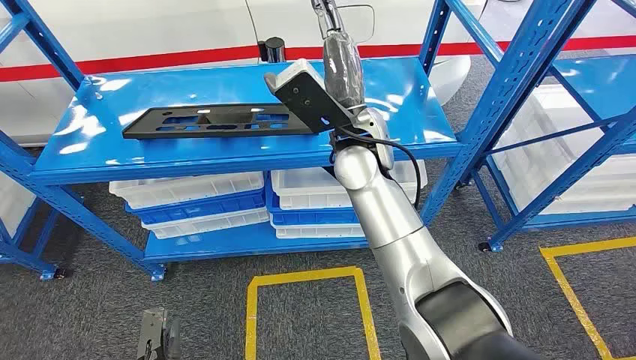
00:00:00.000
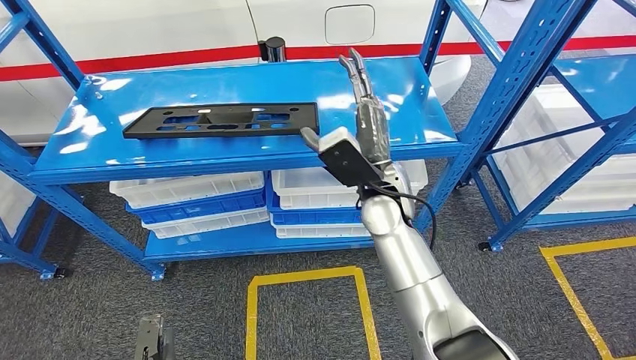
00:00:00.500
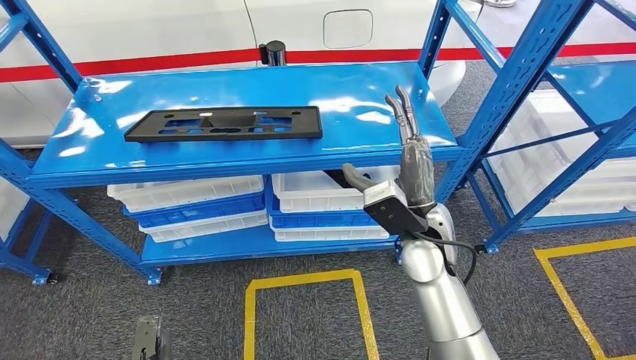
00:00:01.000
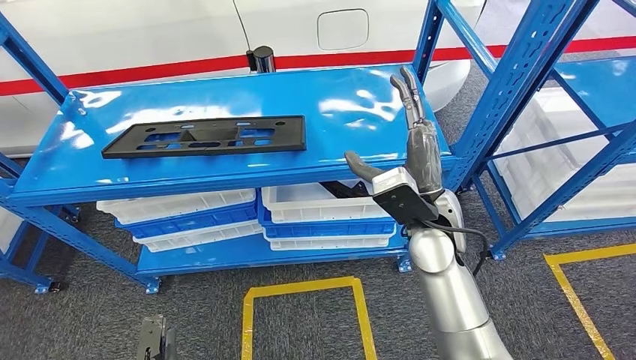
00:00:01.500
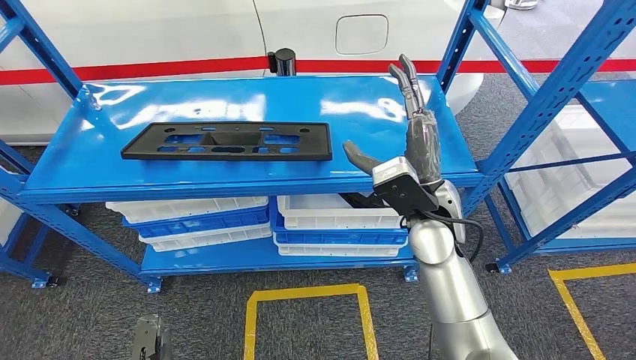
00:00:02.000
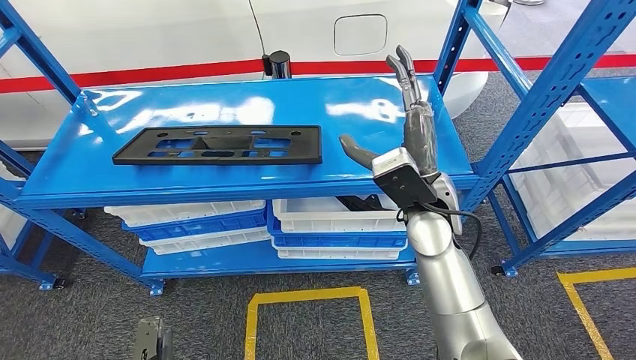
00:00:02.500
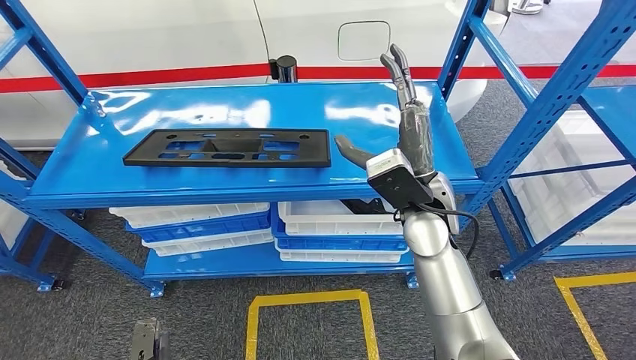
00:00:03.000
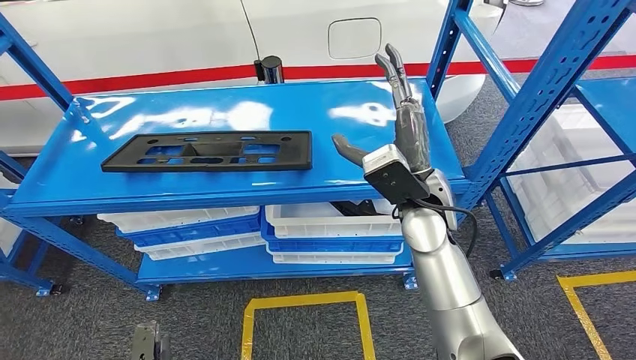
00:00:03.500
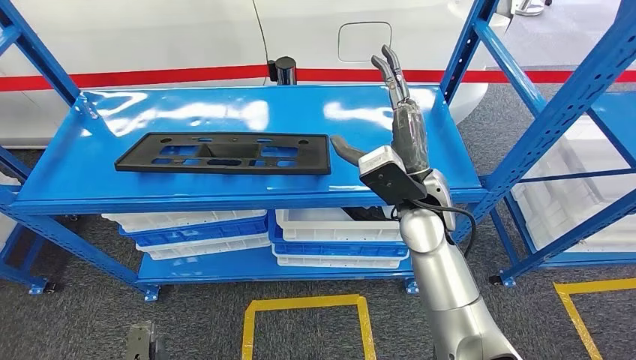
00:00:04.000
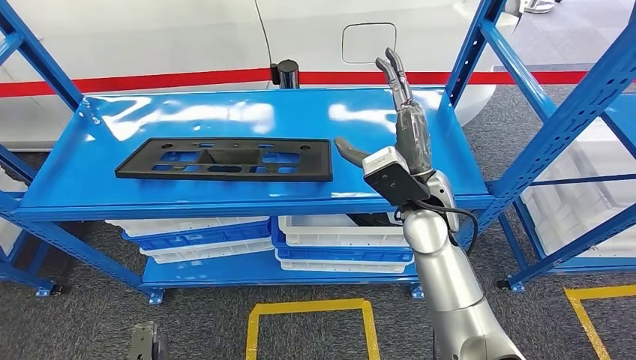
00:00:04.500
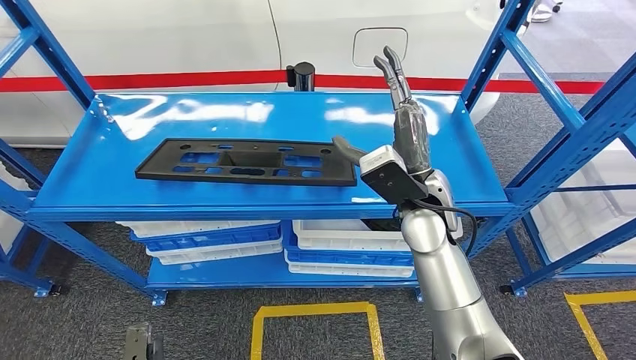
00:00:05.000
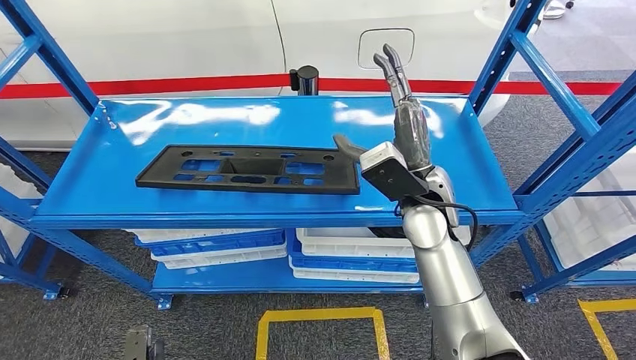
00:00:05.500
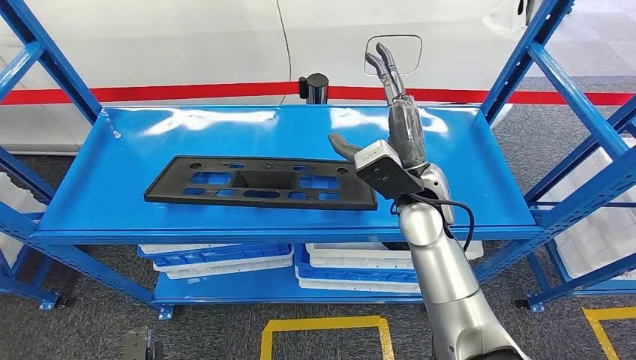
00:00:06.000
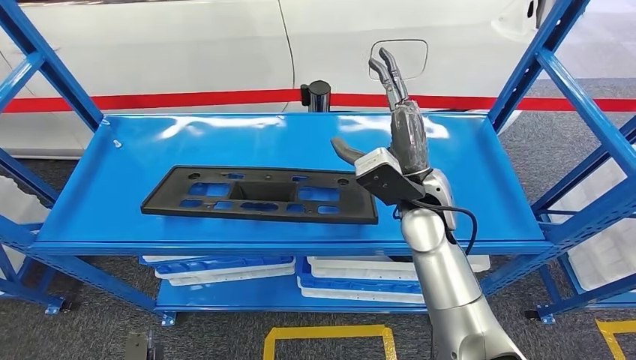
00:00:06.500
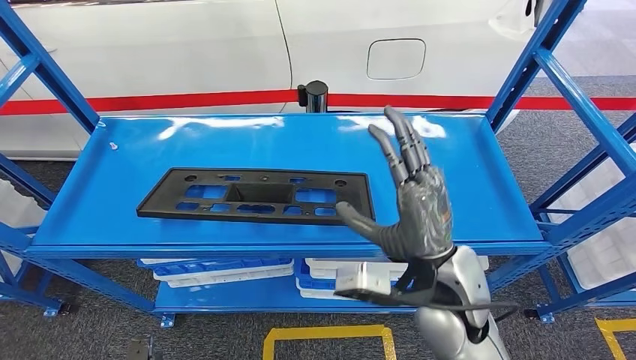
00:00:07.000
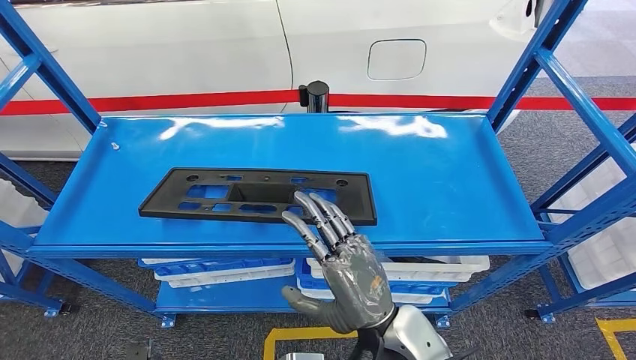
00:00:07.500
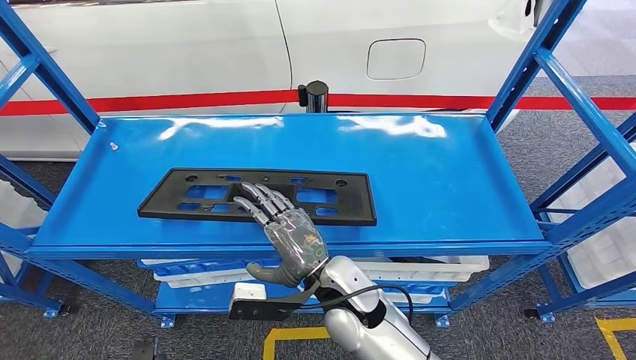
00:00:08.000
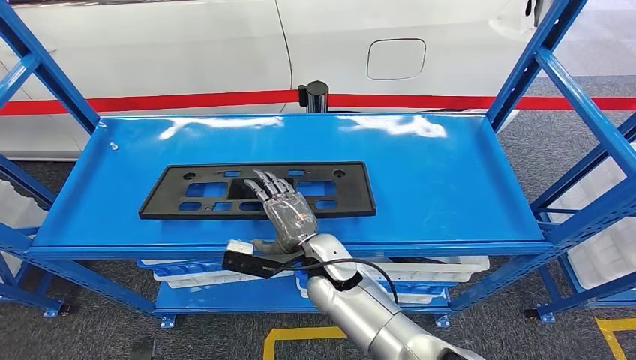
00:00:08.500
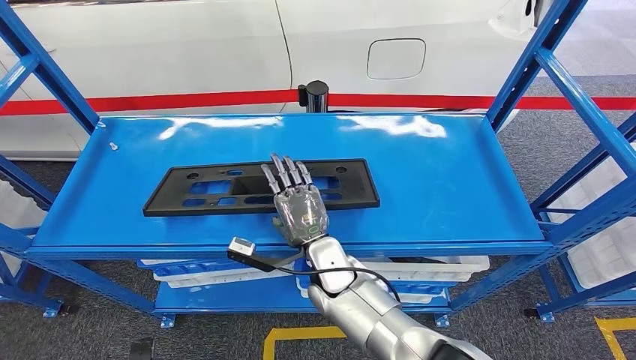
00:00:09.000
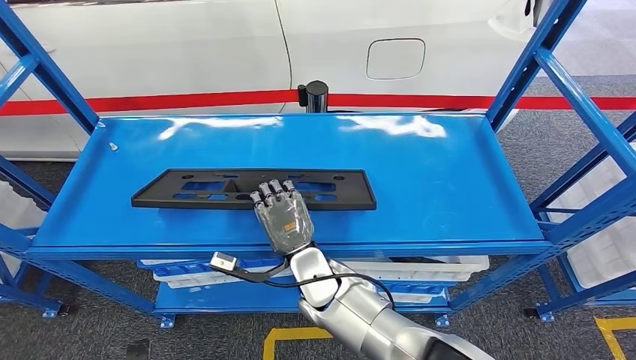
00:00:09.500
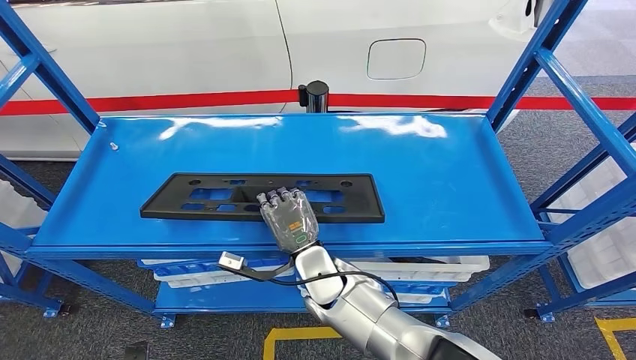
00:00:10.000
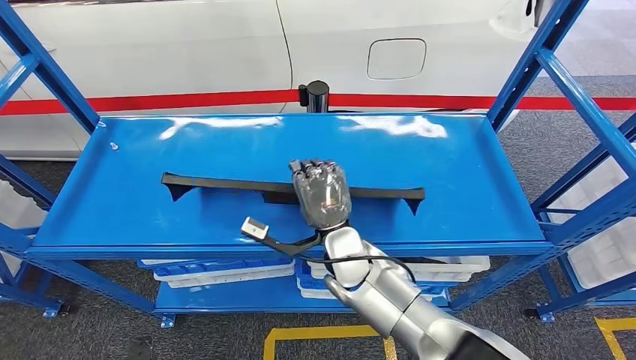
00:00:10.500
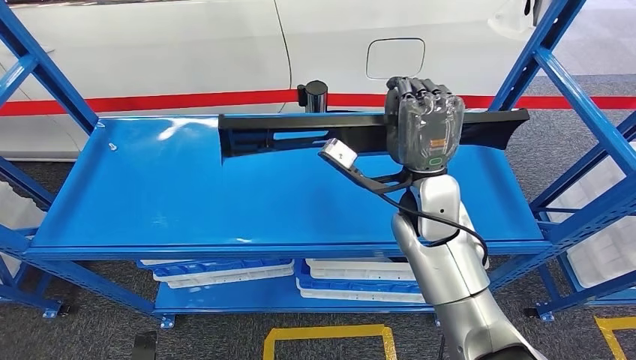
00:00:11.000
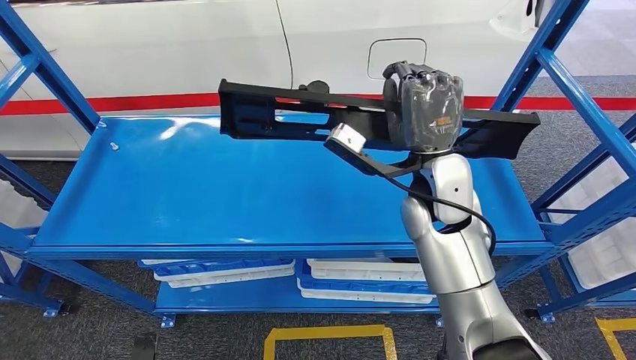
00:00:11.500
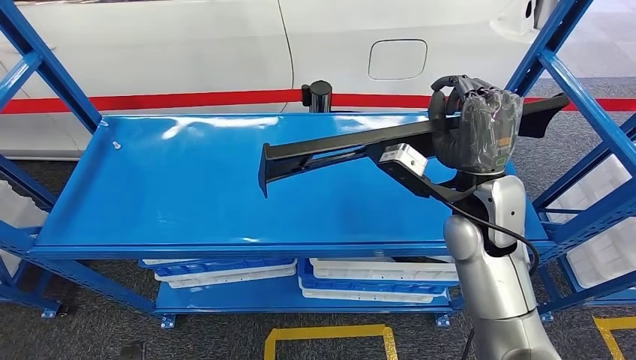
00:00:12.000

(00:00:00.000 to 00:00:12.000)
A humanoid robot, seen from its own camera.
00:00:08.000 - 00:00:10.000: The right hand moves roughly 5 cm.

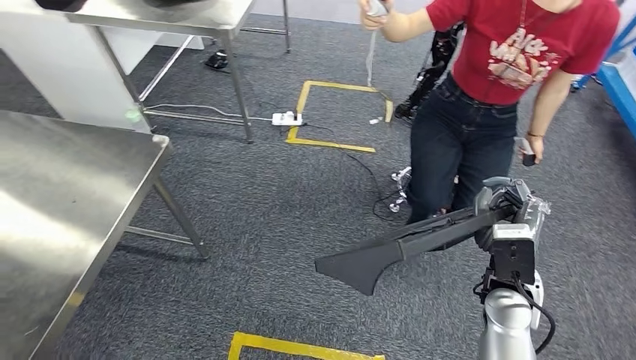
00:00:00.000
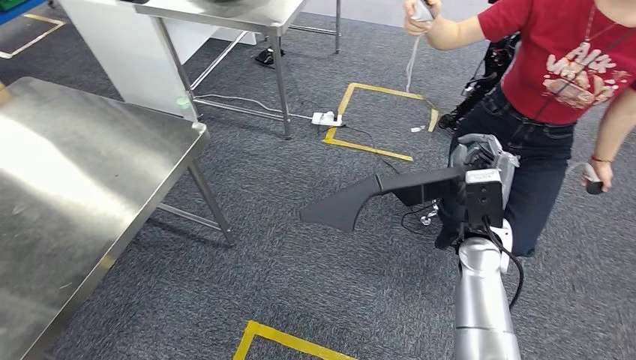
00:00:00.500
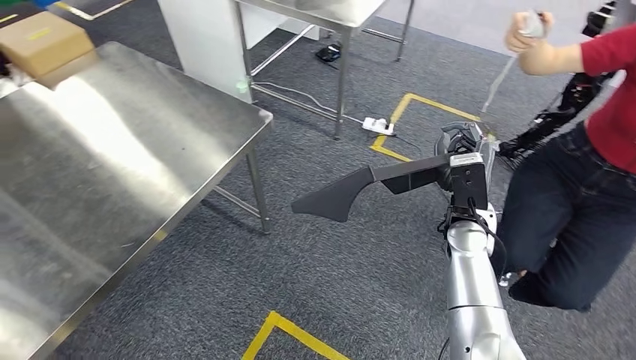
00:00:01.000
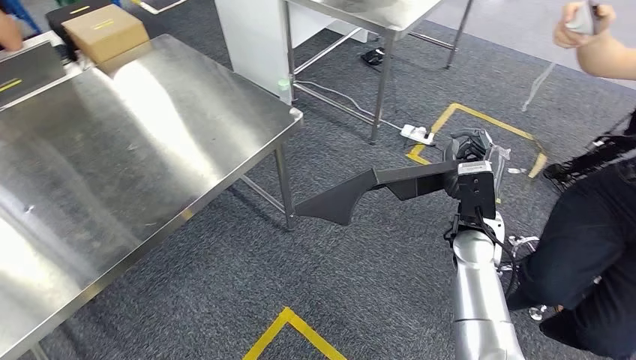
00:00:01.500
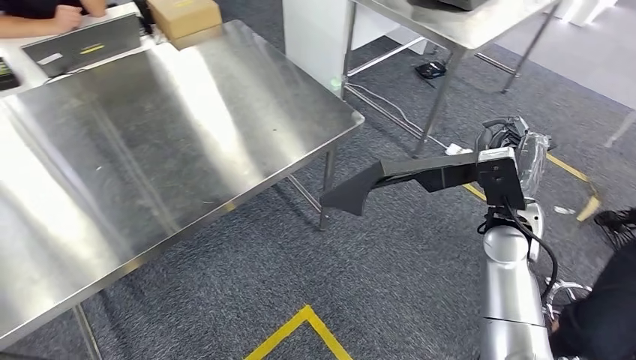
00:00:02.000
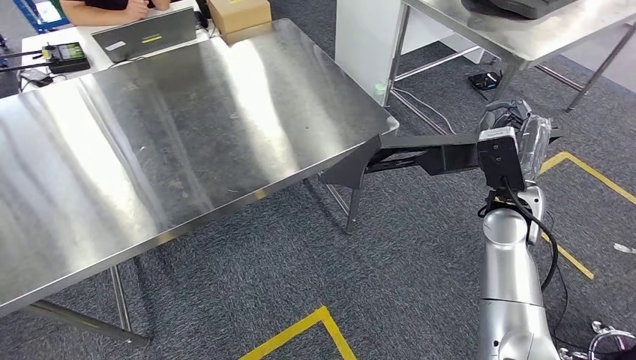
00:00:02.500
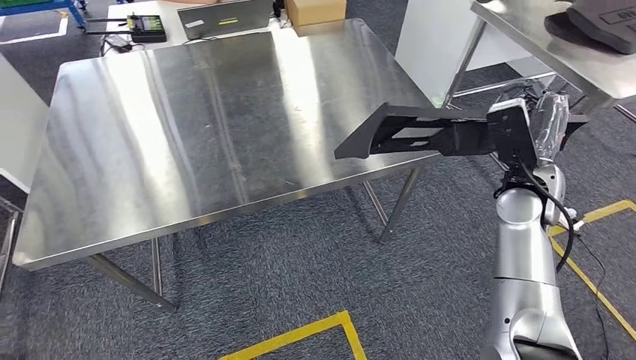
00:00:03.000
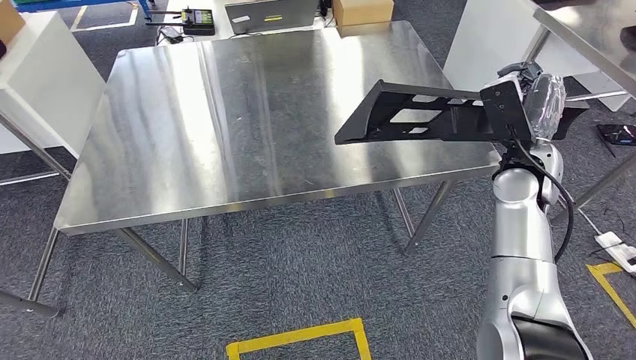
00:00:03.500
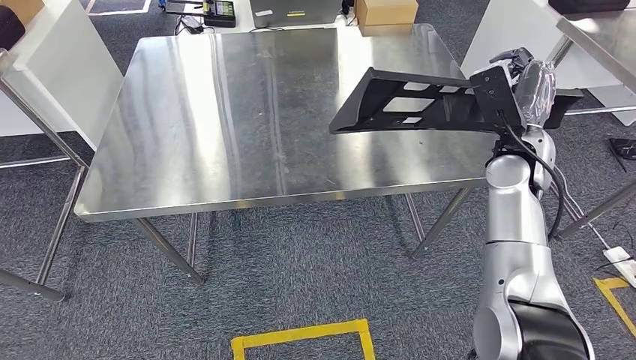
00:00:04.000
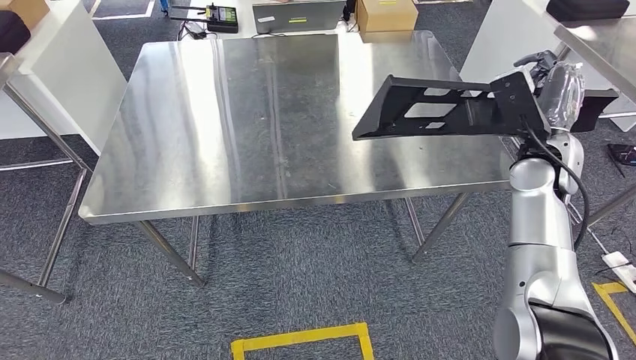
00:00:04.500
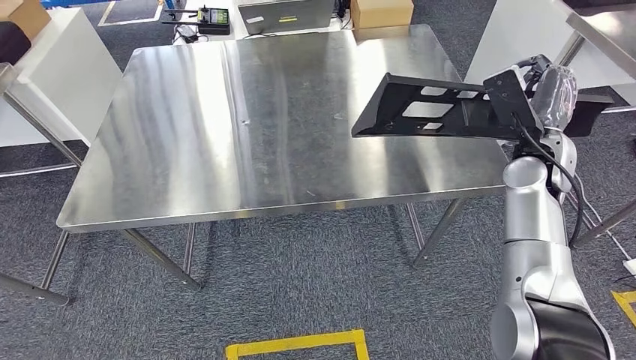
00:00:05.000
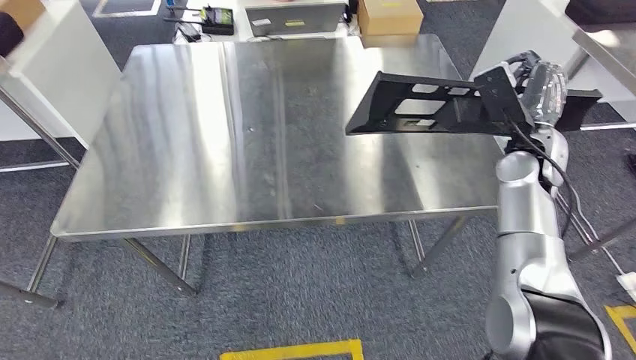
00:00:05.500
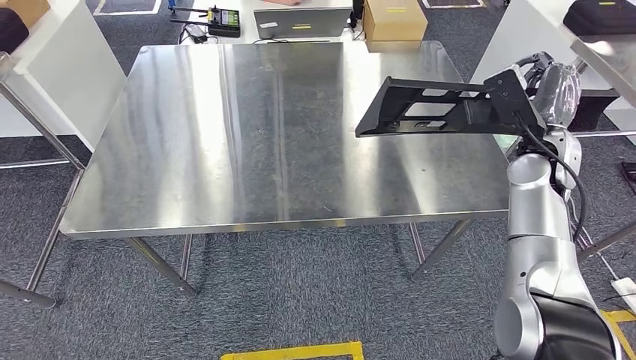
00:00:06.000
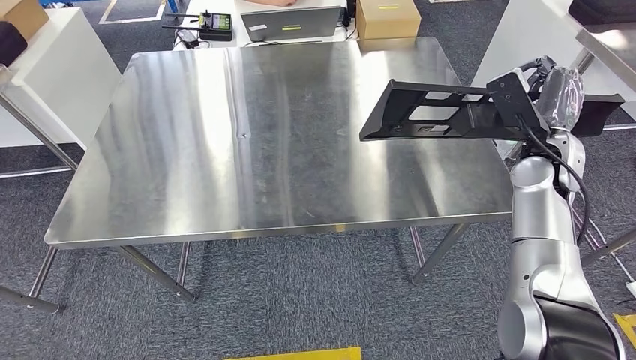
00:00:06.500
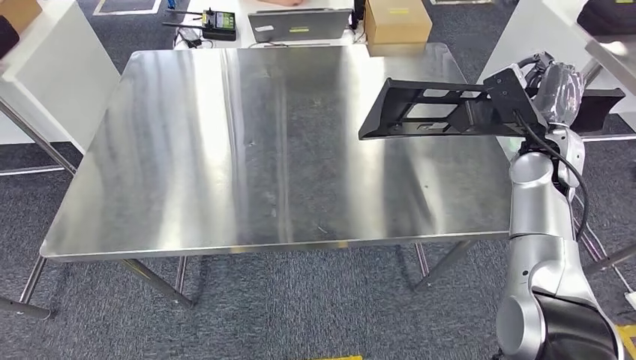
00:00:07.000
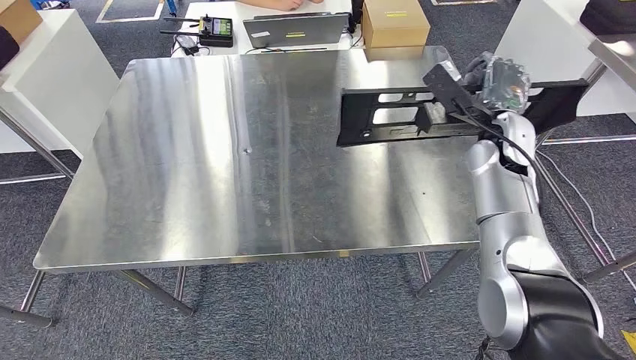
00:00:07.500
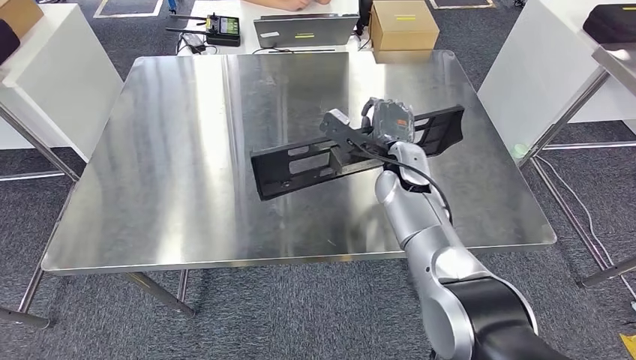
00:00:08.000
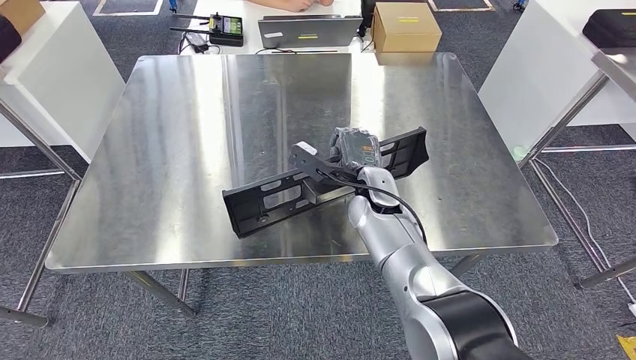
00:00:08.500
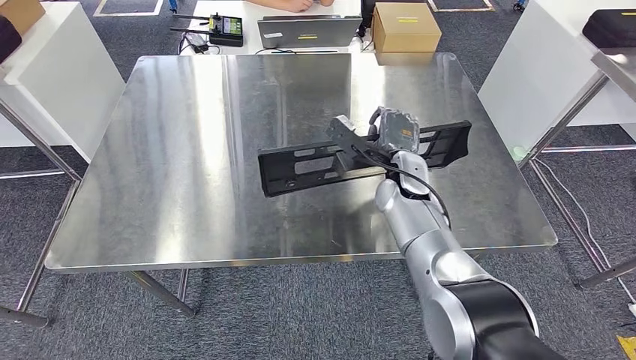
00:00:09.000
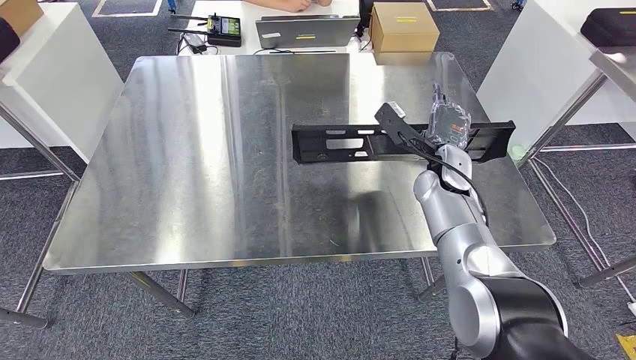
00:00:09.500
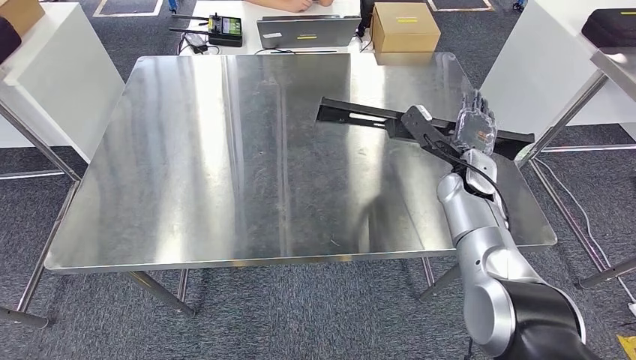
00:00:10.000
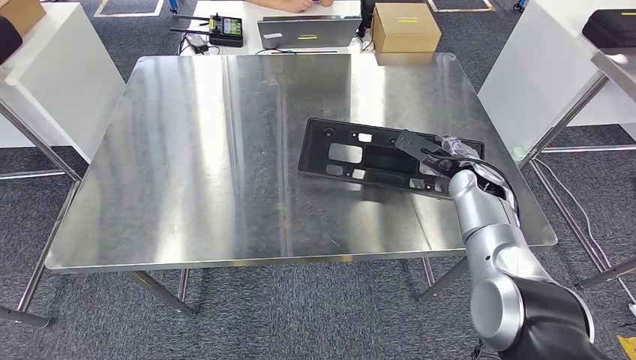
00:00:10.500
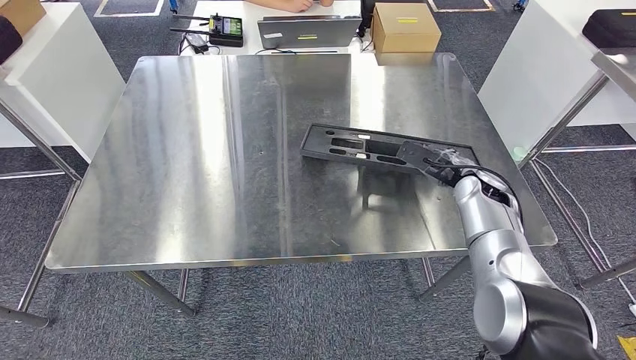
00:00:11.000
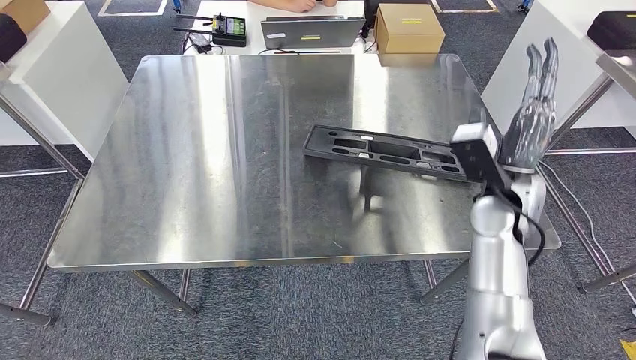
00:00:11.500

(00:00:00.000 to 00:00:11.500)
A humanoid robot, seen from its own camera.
Step, 00:00:00.000 - 00:00:04.000: Move the large material to the workbench.
